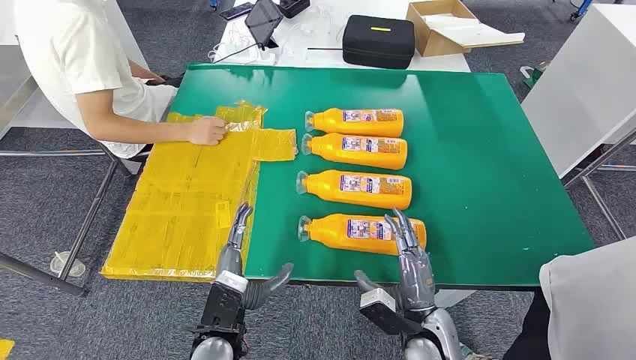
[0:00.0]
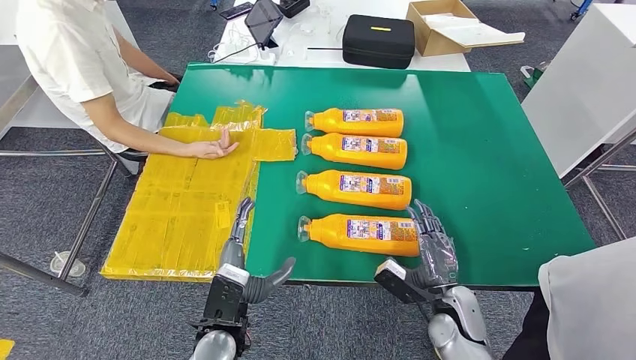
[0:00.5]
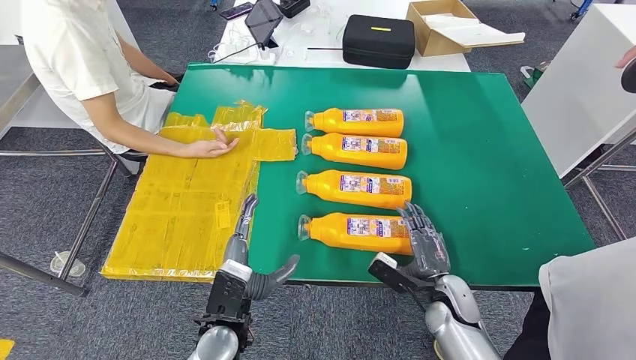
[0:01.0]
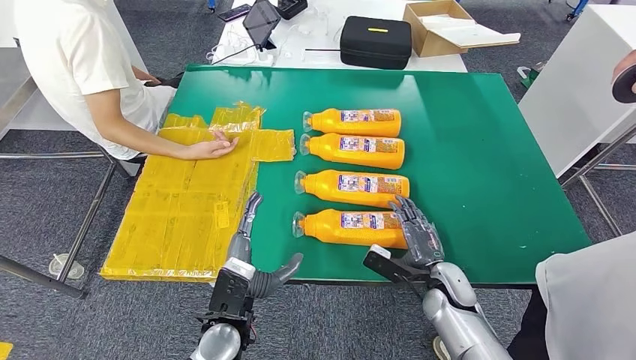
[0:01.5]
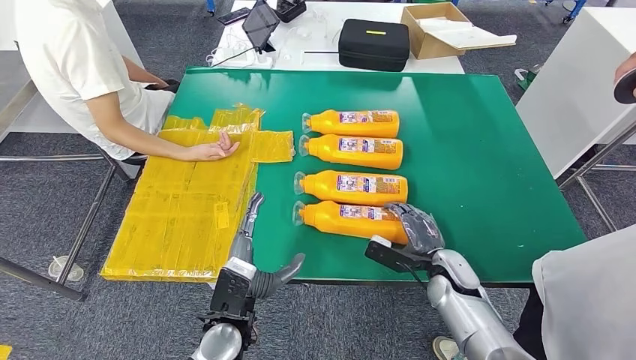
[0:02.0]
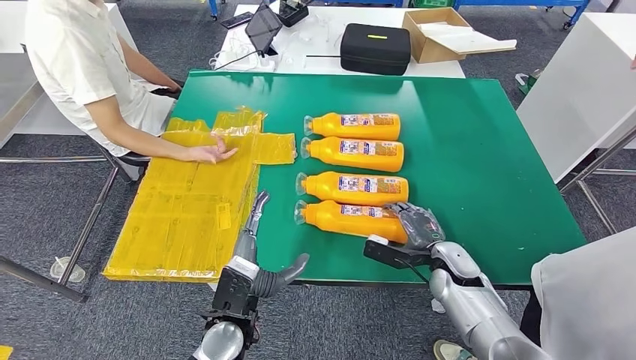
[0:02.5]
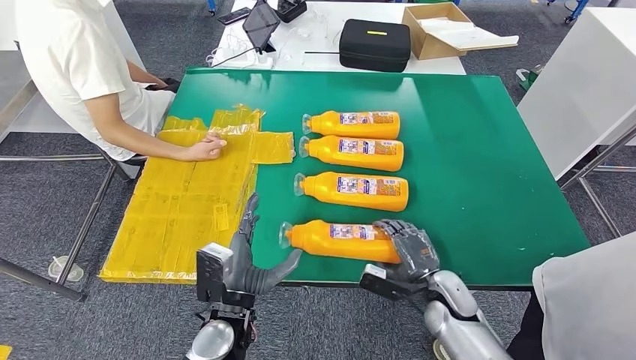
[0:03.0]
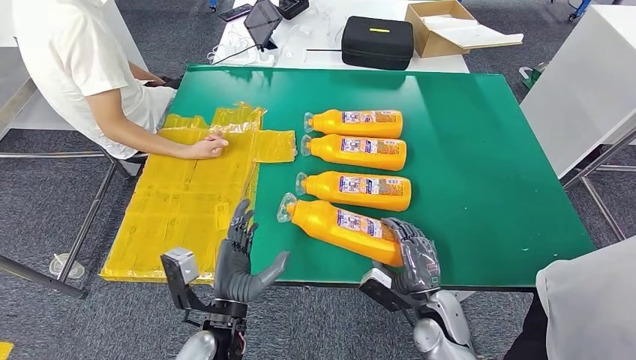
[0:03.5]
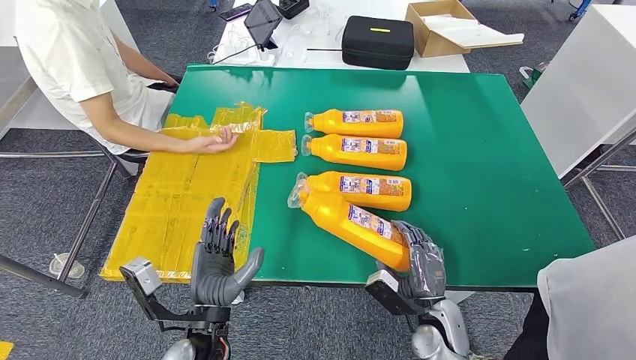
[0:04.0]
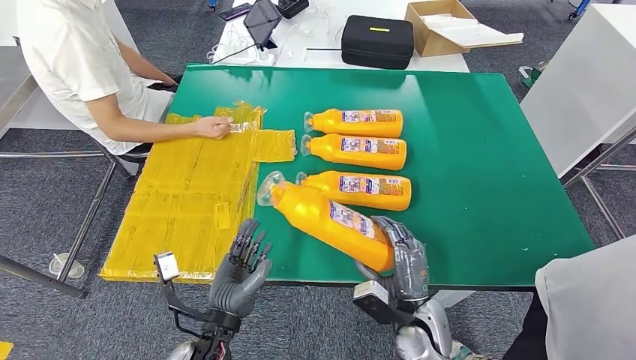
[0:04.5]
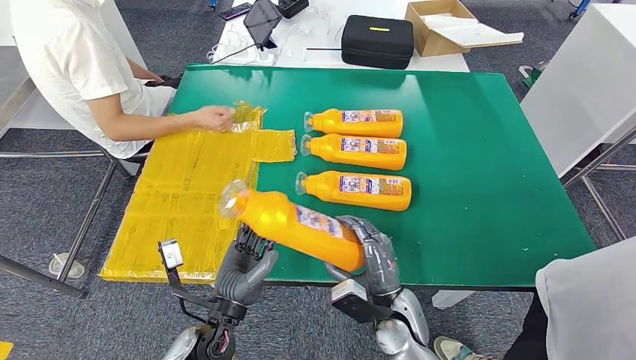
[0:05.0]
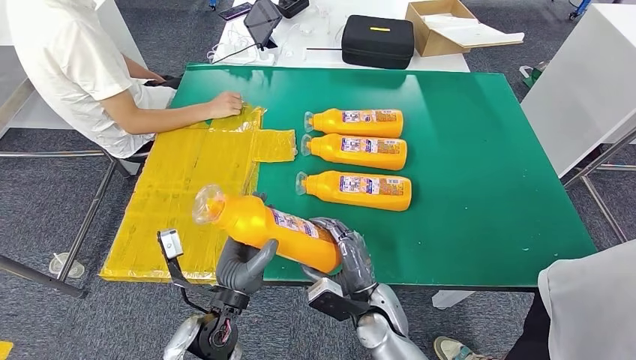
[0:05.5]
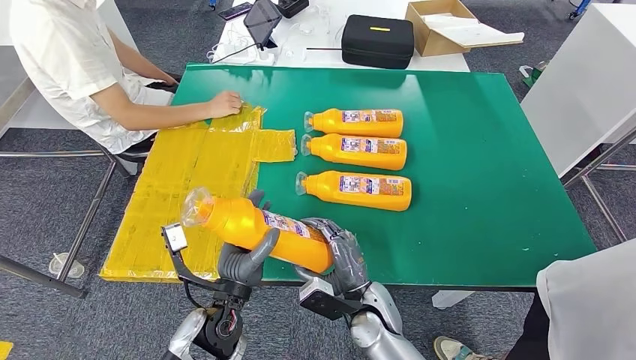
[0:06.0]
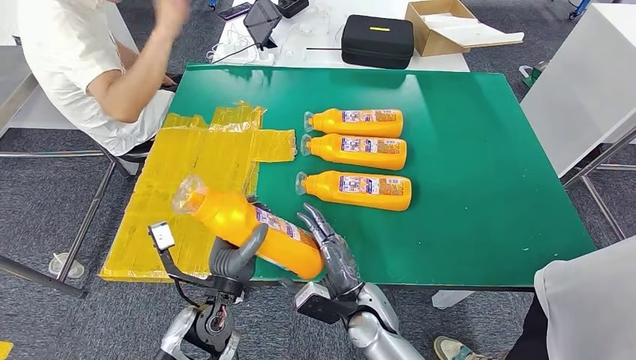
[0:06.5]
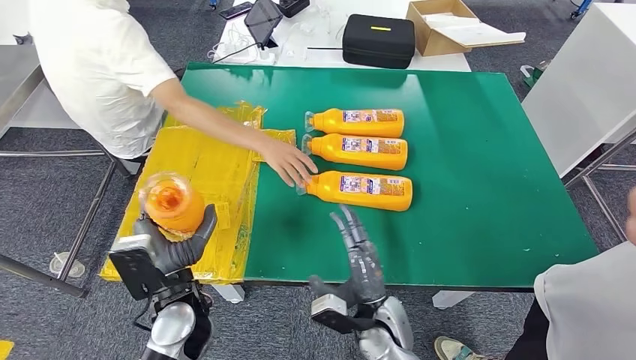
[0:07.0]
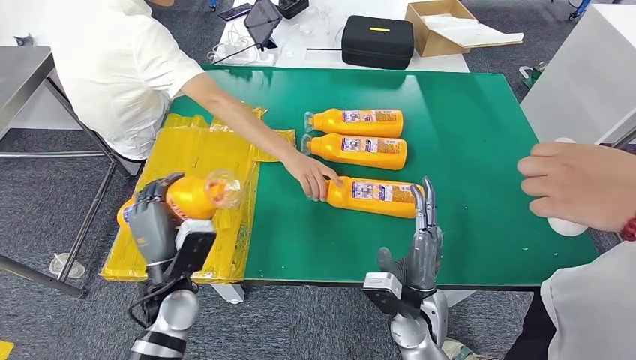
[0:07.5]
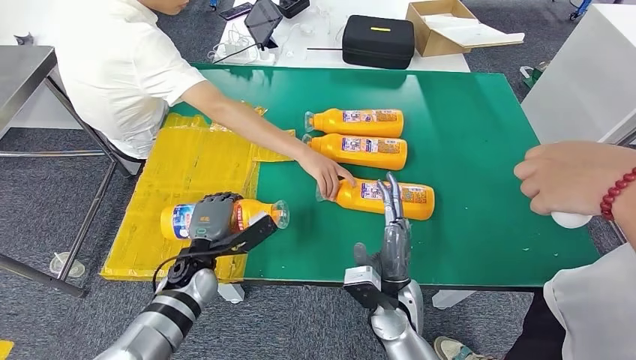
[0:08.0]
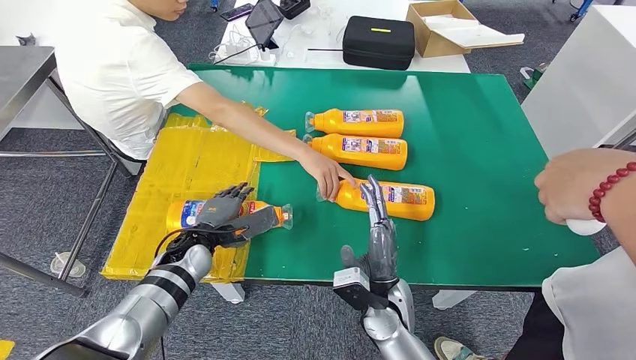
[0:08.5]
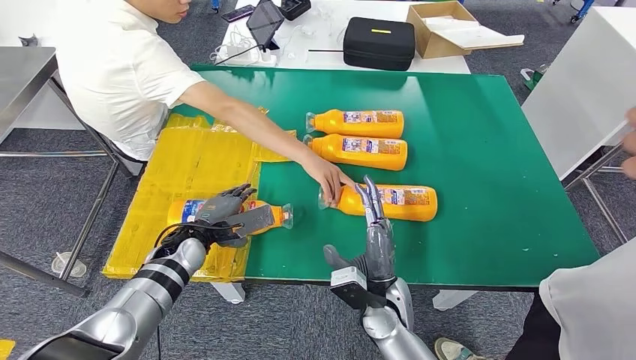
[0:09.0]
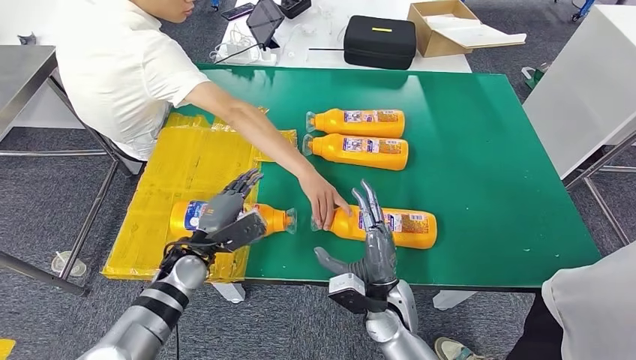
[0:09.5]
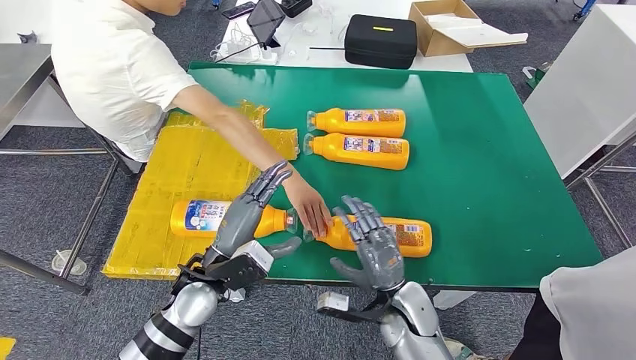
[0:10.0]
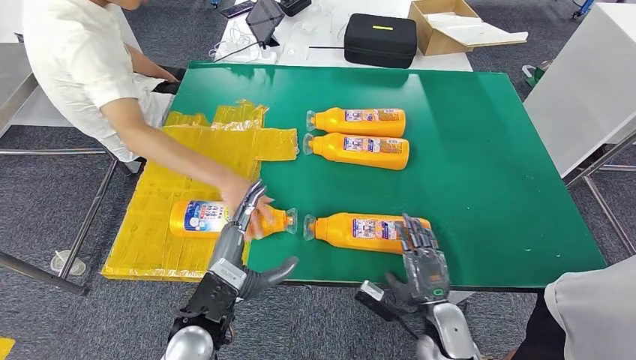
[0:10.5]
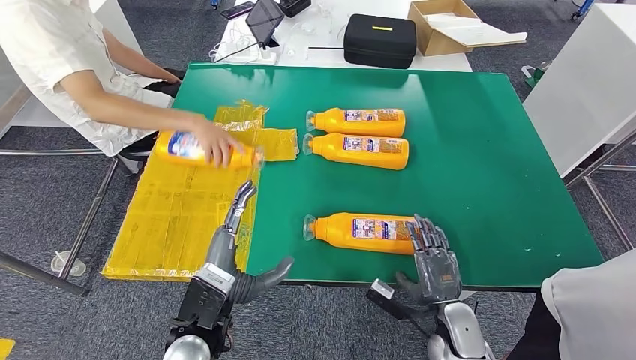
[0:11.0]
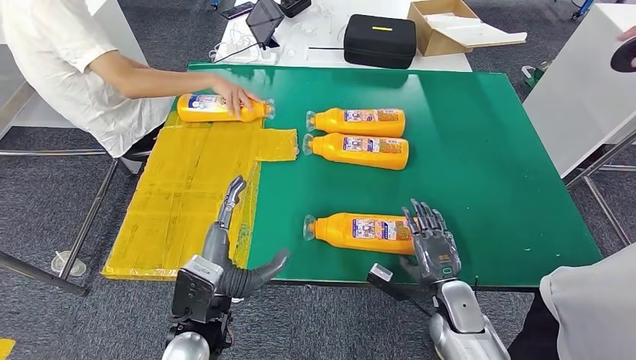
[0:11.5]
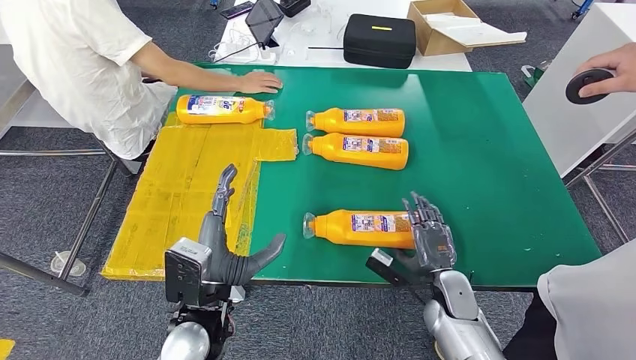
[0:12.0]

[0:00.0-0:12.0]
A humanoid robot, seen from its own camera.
Step, 0:00.0 to 0:04.0: Take the bottle from the table.
Step, 0:04.5 to 0:09.0: Flip the bottle to face forward.
0:04.0 to 0:06.0: The right hand moves to the left, about 10 cm.

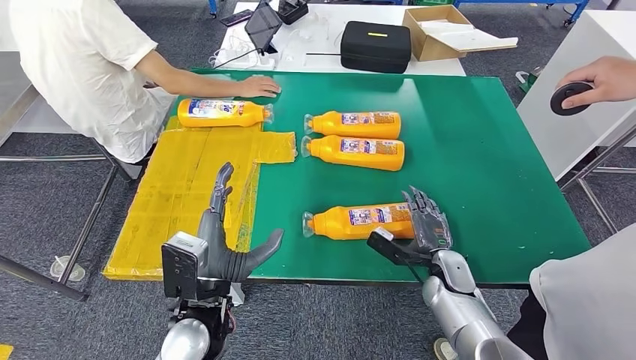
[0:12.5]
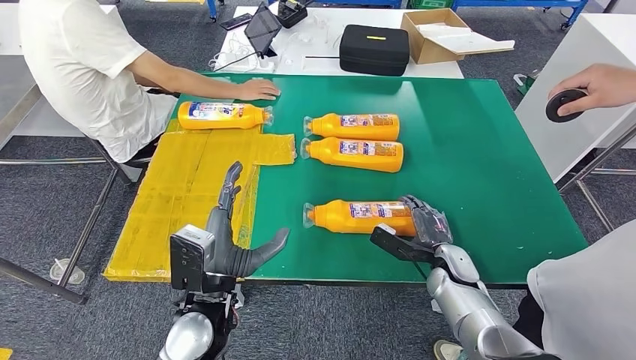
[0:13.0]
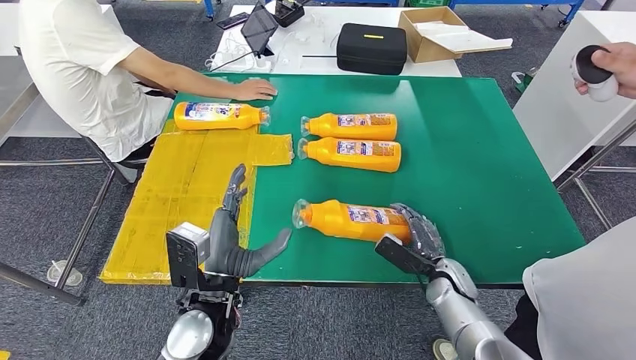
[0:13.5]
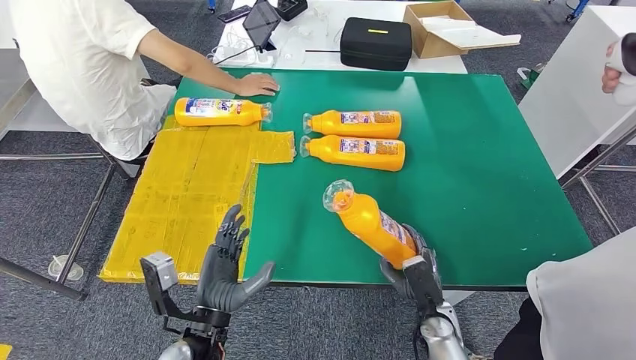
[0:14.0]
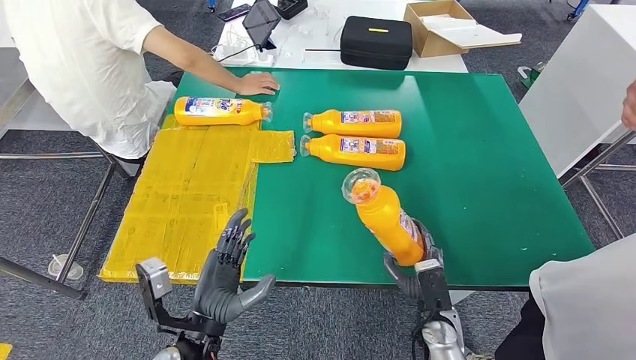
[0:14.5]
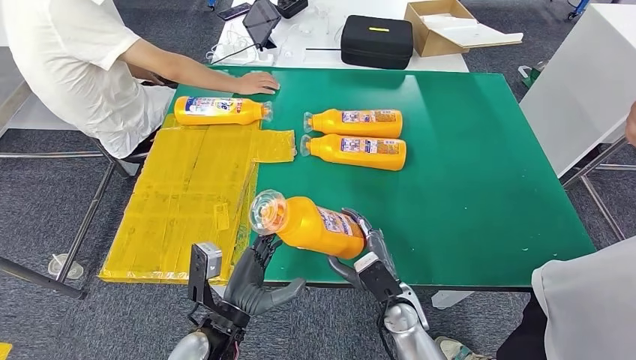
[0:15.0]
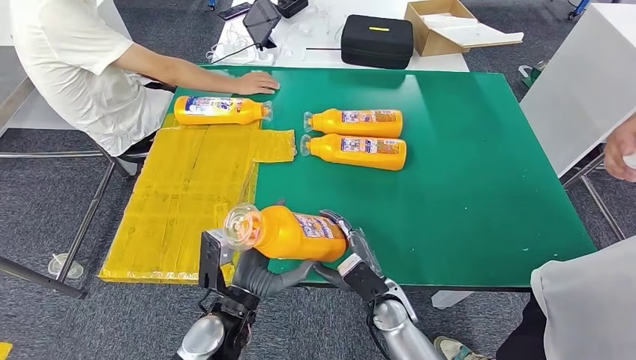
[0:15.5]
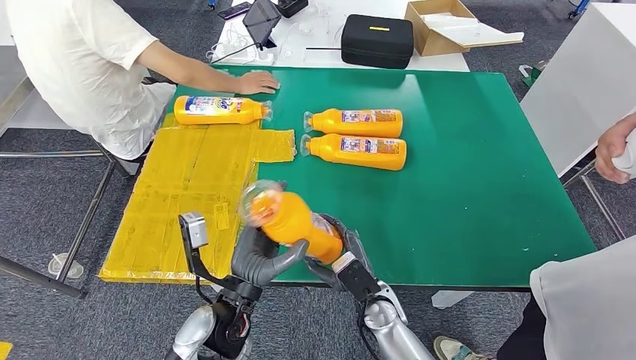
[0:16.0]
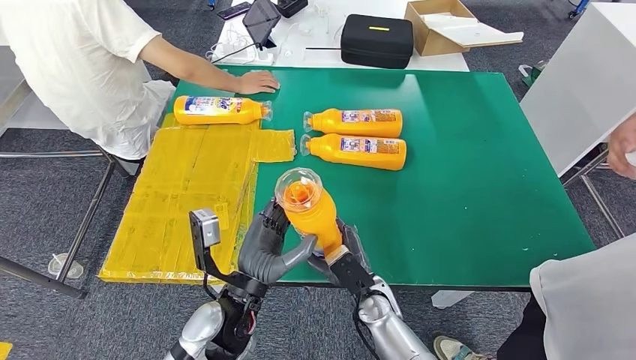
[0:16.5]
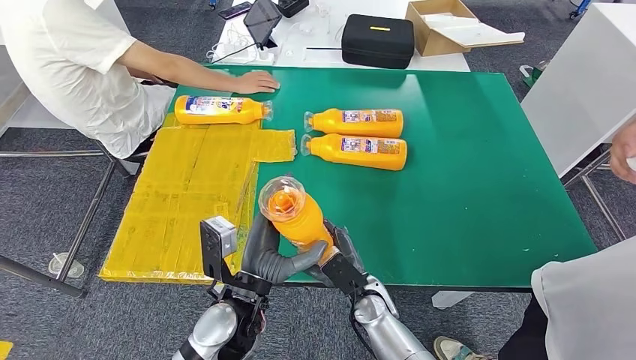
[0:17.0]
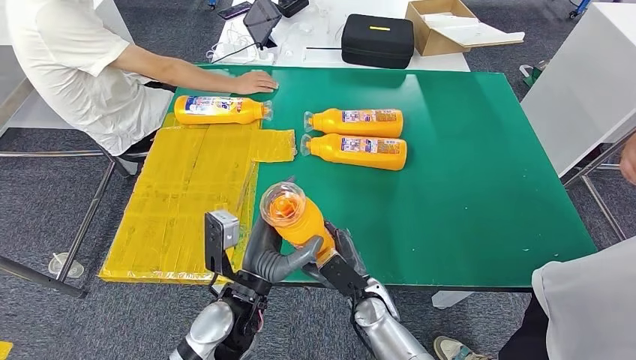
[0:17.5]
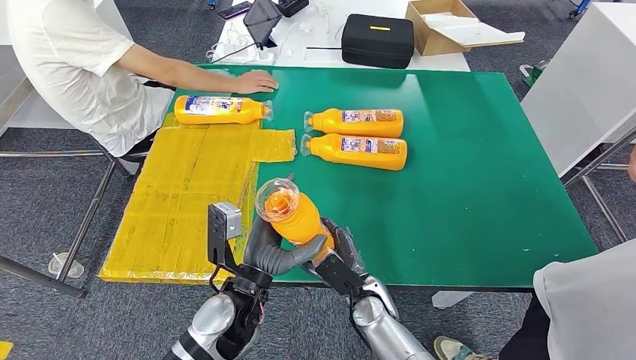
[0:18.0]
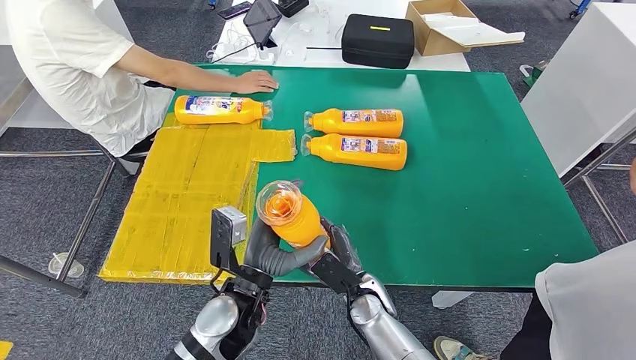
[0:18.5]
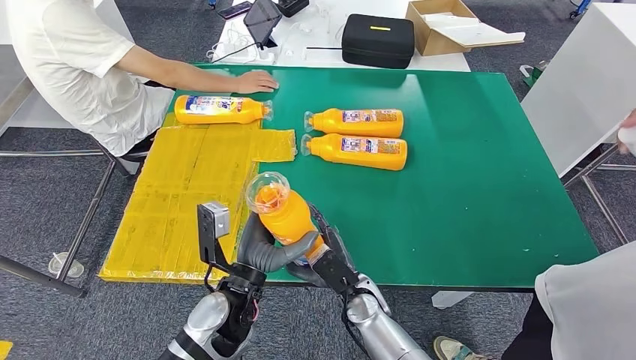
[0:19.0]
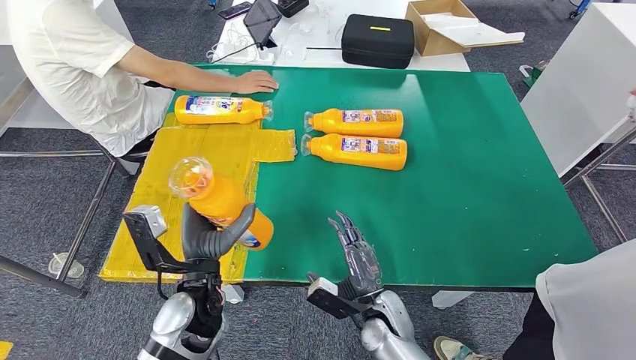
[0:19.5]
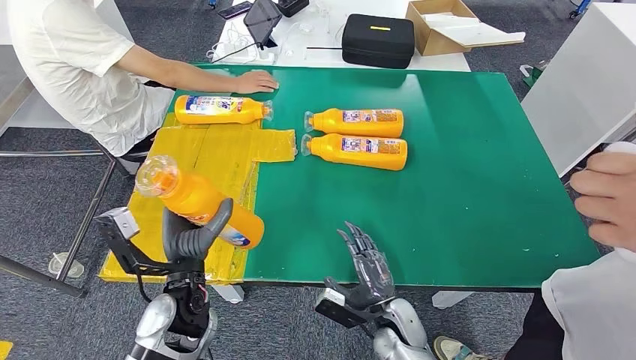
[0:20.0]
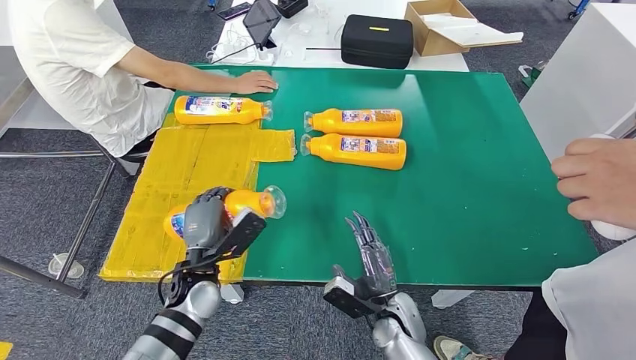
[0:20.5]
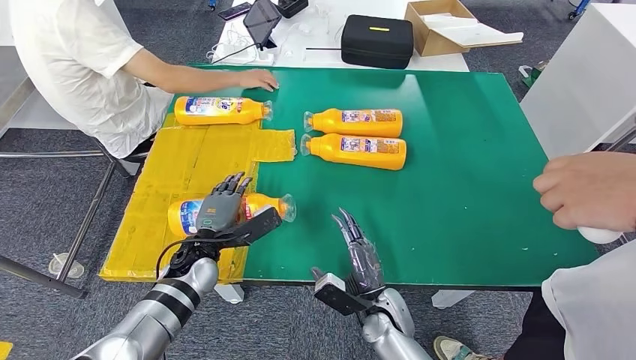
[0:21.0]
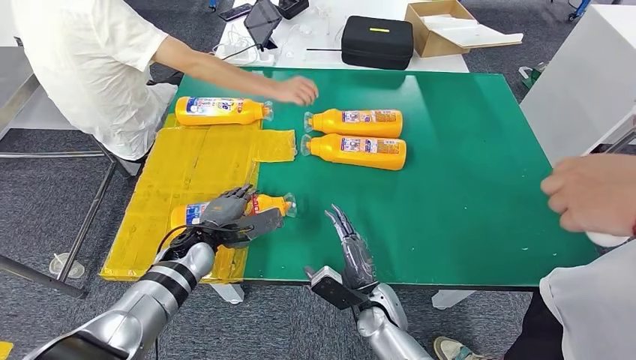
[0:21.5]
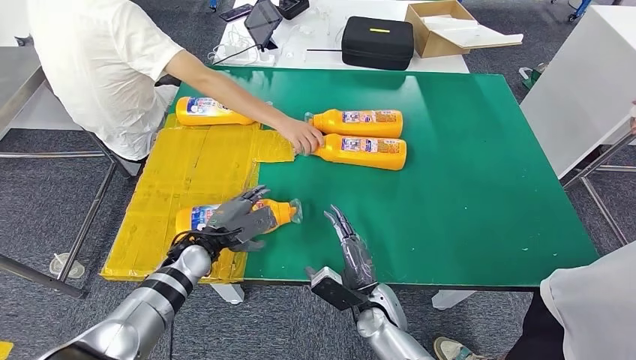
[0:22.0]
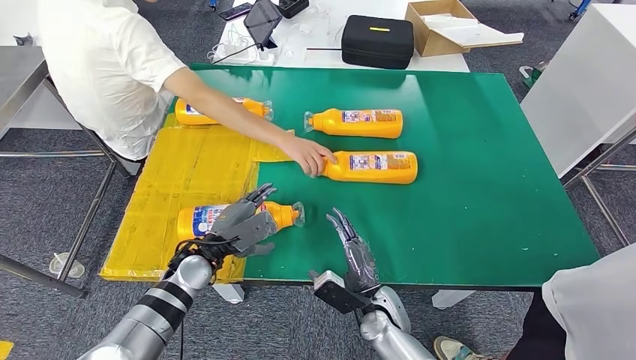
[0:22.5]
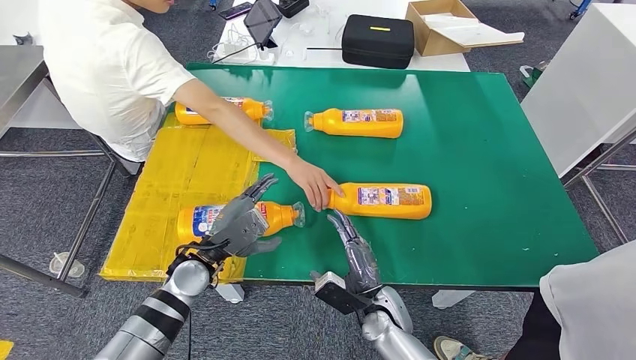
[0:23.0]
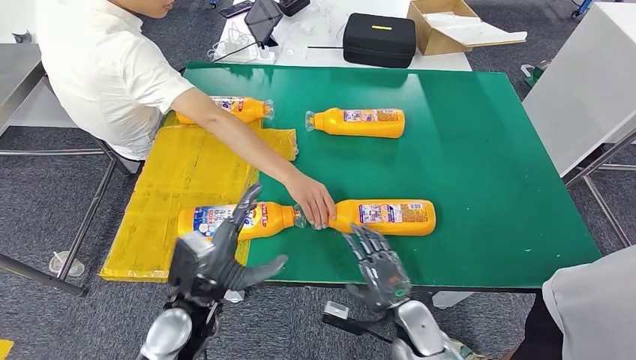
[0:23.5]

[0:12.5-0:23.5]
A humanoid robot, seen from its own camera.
0:14.5 to 0:16.0: The right hand heads to the left, covering about 10 cm. Meanwhile the left hand shifts about 5 cm to the right.
0:18.0 to 0:20.0: The right hand goes some 5 cm to the right. The left hand heads to the left, covering roughly 10 cm.
